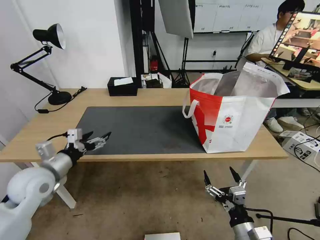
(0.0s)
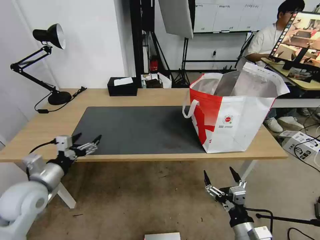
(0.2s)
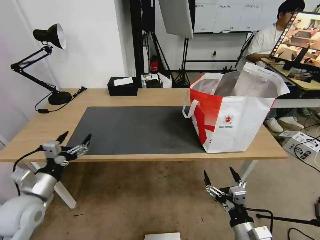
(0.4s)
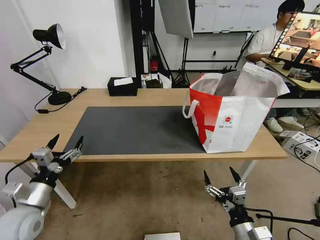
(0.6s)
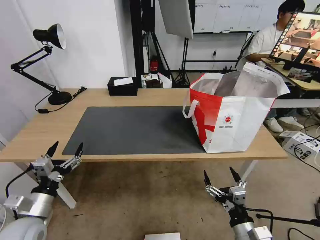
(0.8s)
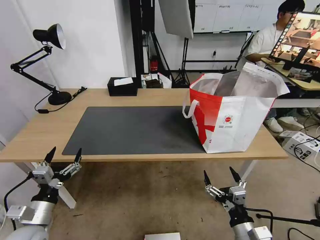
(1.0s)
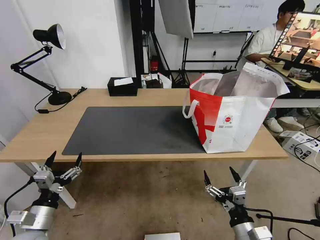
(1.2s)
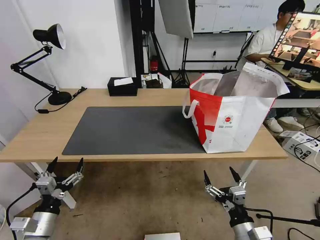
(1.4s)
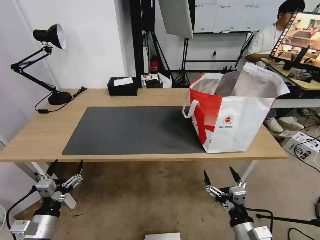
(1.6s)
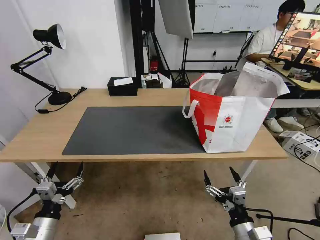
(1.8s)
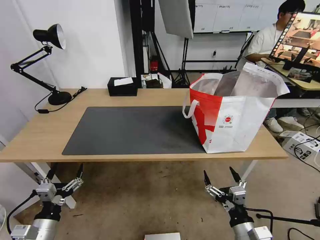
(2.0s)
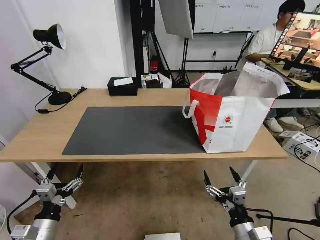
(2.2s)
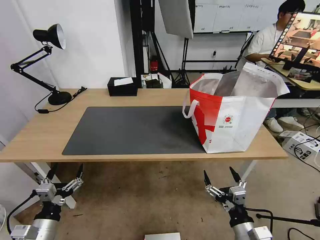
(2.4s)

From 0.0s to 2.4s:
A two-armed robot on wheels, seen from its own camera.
Task of the whole recording: Pick up the trash from the table and place it into the takeout bag.
From 0.0s to 1.2s: The left gripper is displaced backward and downward by roughly 15 cm.
From 1.2s to 2.4s: The grippers move only a little.

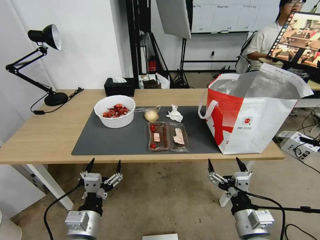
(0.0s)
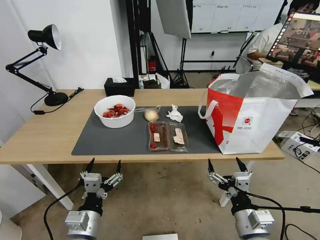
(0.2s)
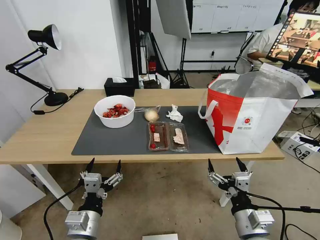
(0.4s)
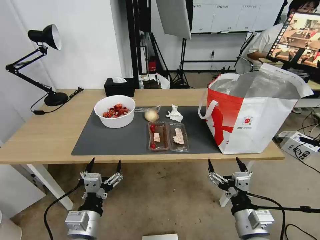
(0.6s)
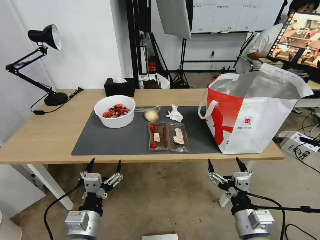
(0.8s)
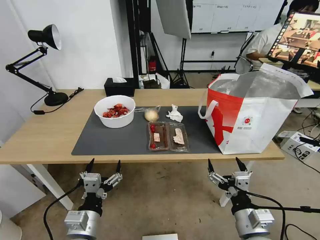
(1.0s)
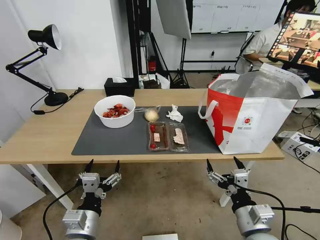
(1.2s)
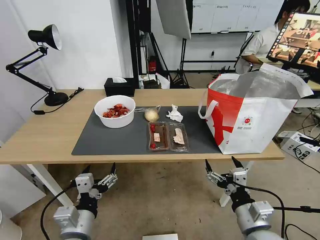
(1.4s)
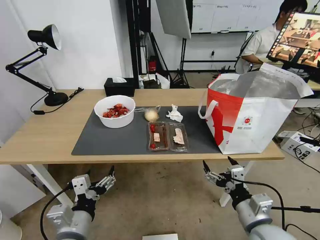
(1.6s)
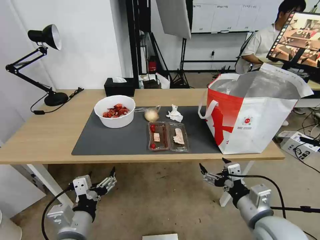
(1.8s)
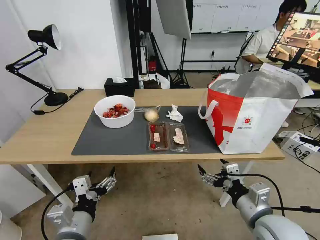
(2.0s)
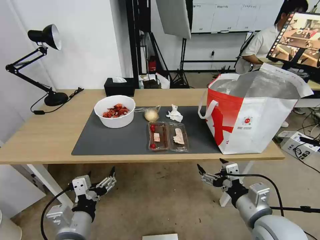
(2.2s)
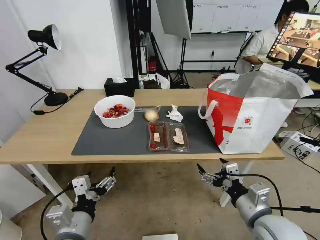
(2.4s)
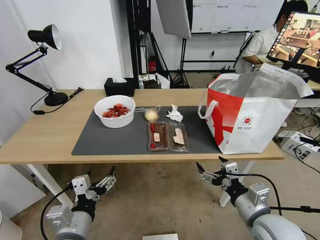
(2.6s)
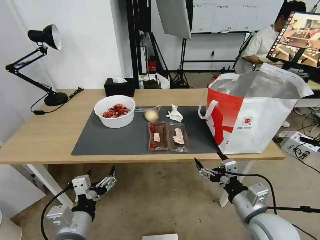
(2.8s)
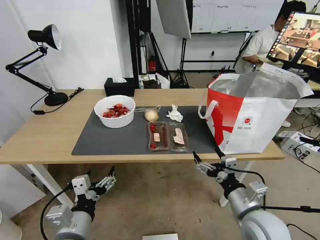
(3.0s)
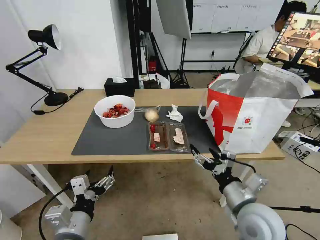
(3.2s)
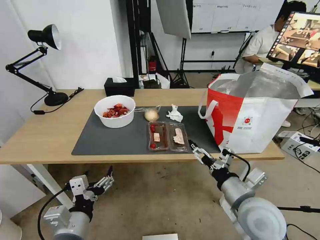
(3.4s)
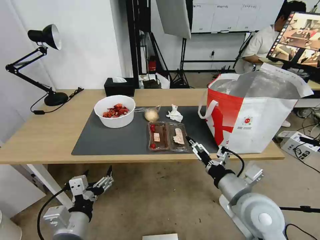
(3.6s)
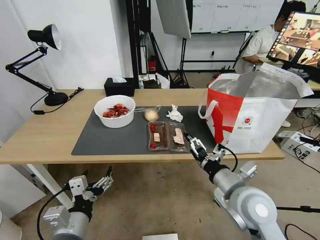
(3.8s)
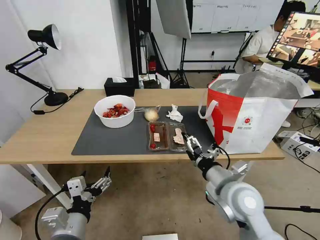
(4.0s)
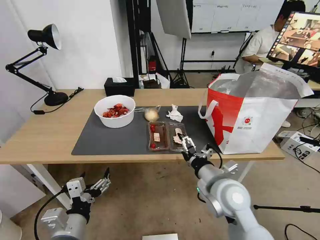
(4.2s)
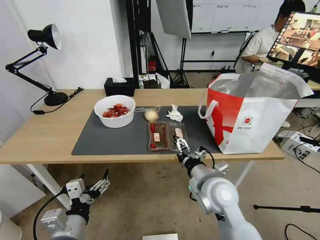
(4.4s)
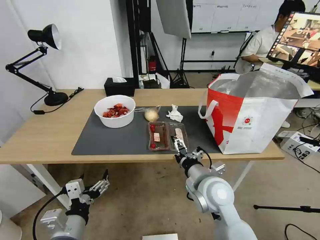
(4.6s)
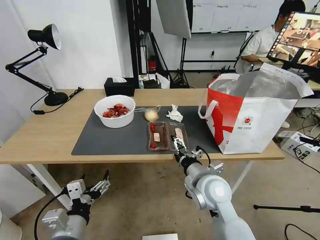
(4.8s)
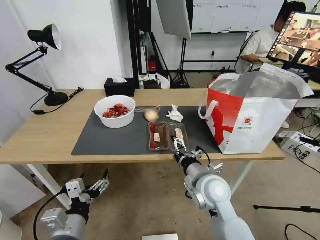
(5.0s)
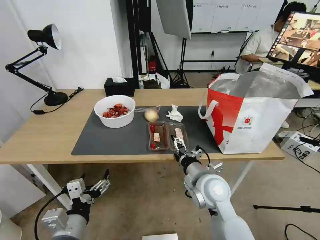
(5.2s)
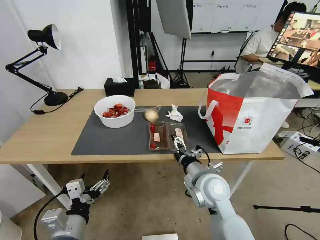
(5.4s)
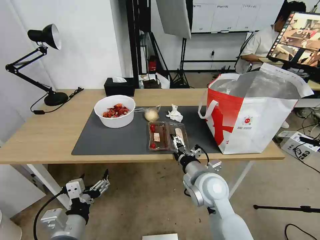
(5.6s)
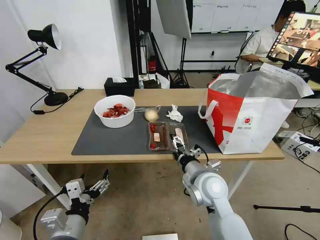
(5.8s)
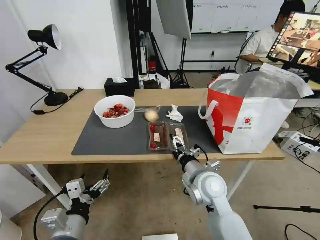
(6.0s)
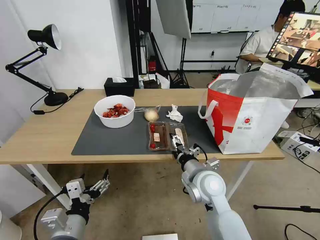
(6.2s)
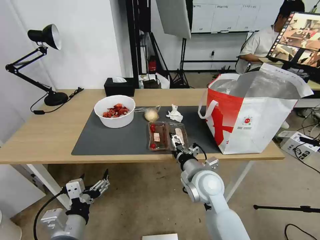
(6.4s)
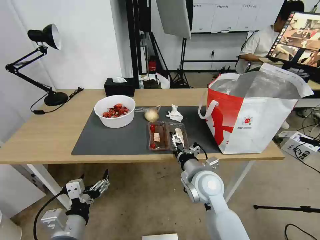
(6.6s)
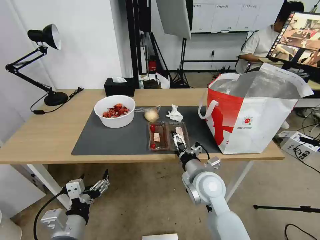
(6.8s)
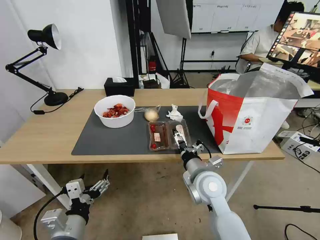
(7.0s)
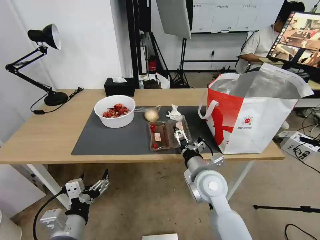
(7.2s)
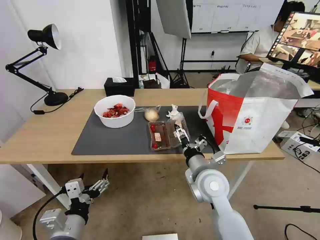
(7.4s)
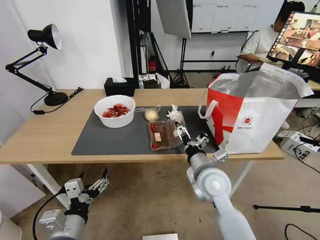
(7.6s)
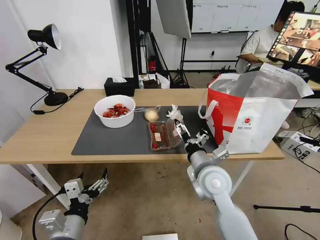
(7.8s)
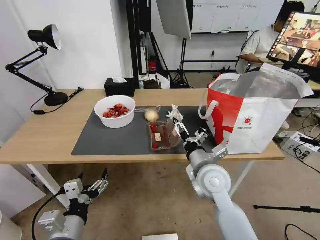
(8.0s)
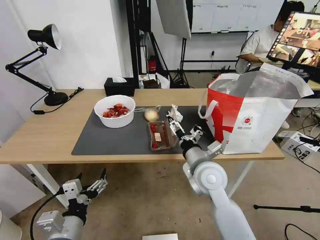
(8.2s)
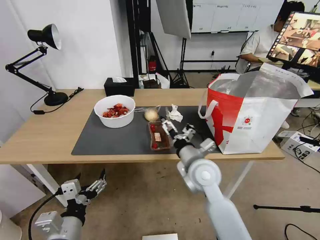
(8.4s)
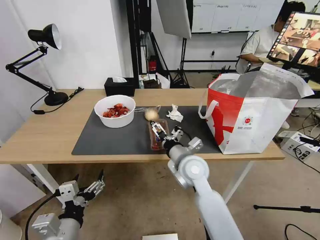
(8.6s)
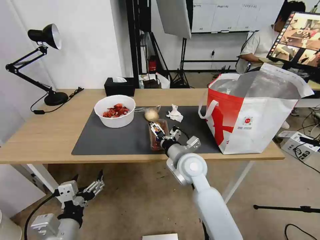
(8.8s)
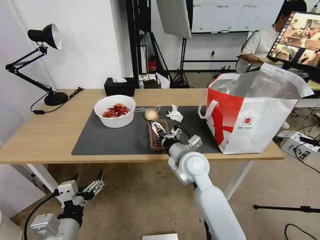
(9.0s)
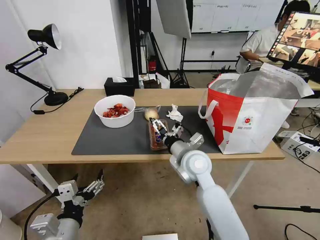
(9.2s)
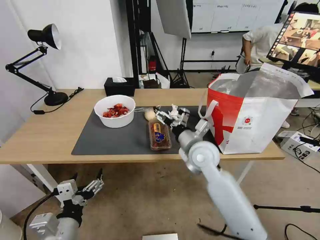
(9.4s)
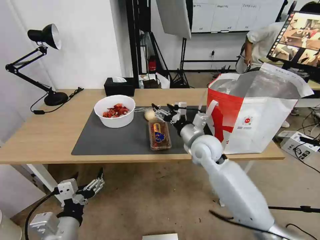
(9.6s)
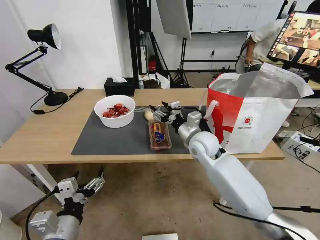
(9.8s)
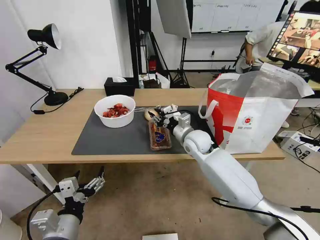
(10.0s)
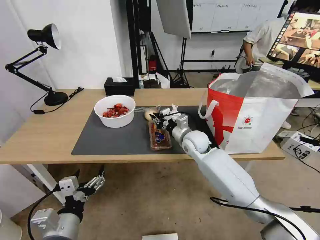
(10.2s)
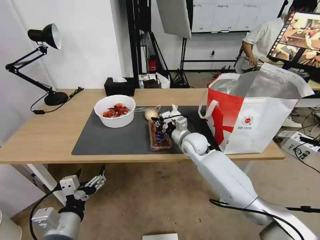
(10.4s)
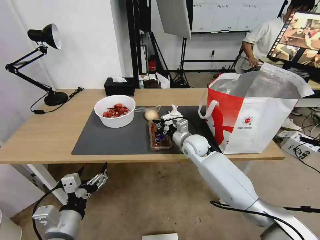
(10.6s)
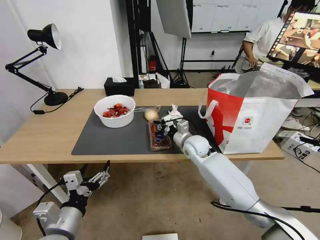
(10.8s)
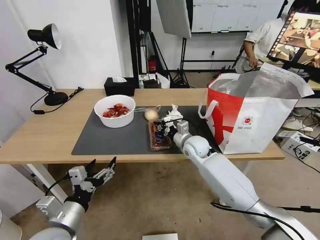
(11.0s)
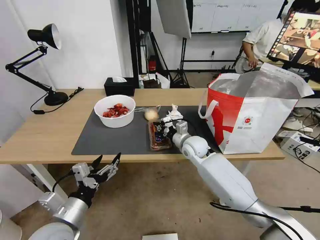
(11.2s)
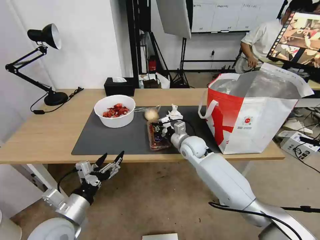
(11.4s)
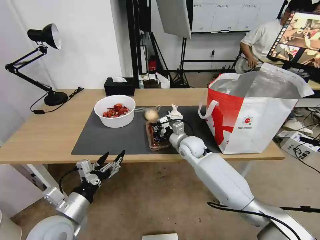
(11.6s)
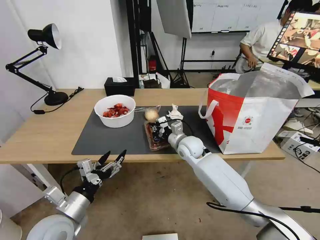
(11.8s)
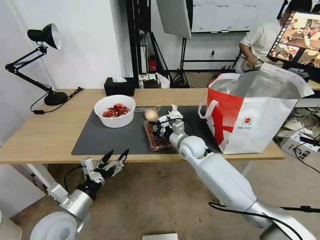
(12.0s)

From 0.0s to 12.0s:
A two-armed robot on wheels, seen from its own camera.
Task of the whole recording: Pick up the trash from the table and place it into the takeout bag.
From 1.6s to 3.0s: The grippers stay close to where they were, moving slightly.
From 3.0s to 4.4s: The right gripper goes about 10 cm to the left and forward.
From 4.4s to 7.6s: The grippers move only a little.
From 7.6s to 9.0s: The right gripper travels forward by about 5 cm.
From 9.0s to 10.4s: The right gripper moves forward, about 10 cm, and closes.
From 10.4s to 12.0s: The left gripper shifts some 5 cm forward.

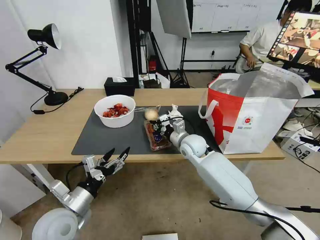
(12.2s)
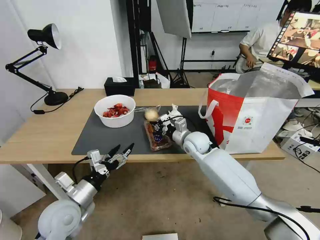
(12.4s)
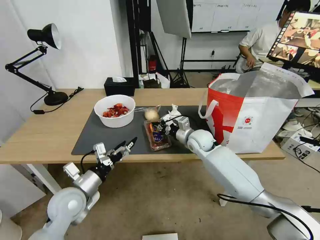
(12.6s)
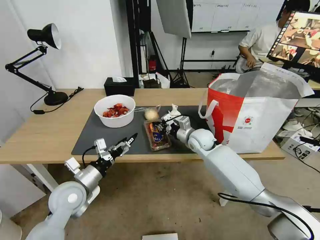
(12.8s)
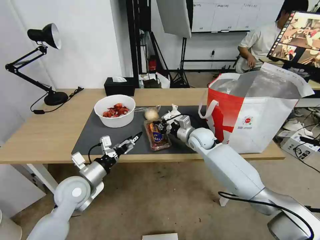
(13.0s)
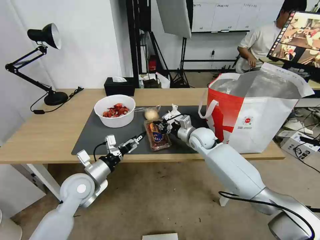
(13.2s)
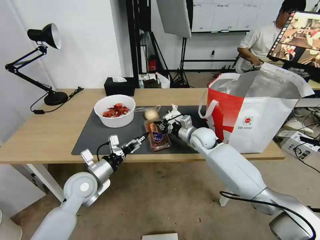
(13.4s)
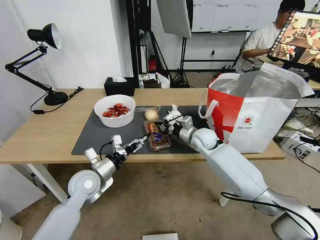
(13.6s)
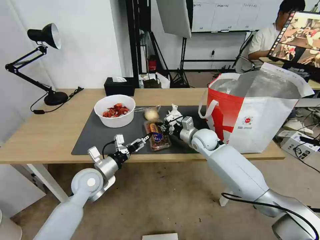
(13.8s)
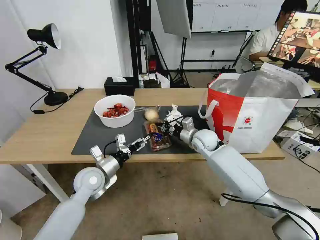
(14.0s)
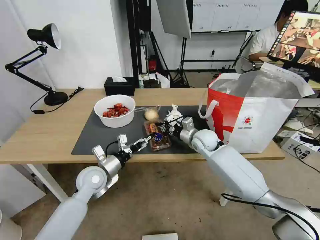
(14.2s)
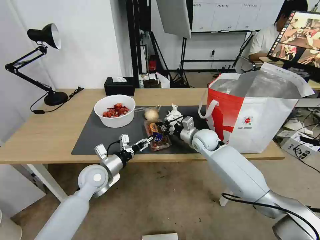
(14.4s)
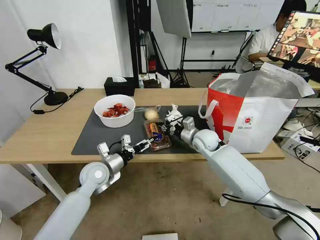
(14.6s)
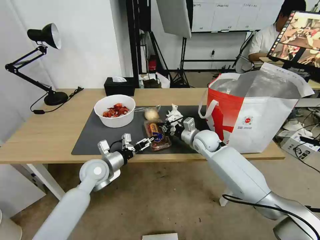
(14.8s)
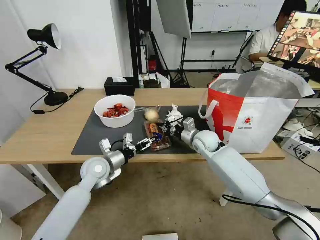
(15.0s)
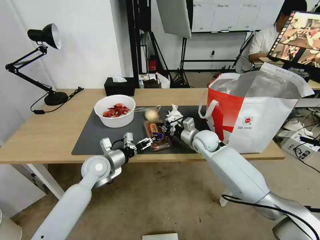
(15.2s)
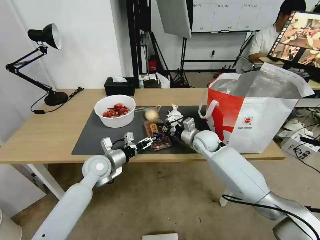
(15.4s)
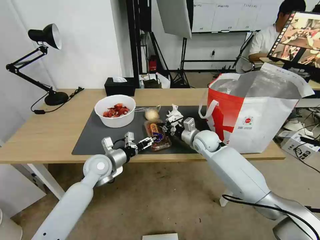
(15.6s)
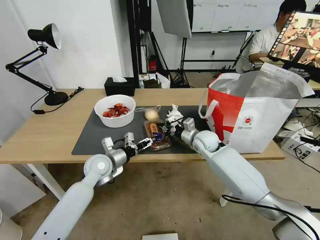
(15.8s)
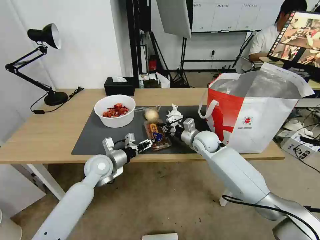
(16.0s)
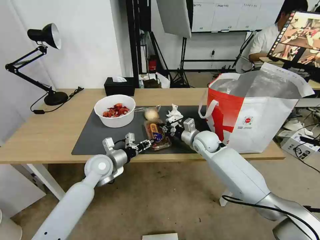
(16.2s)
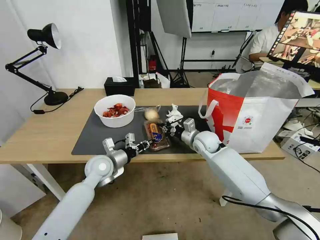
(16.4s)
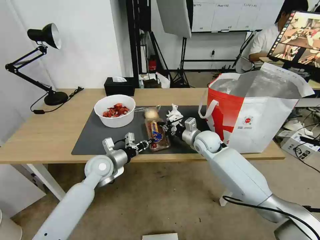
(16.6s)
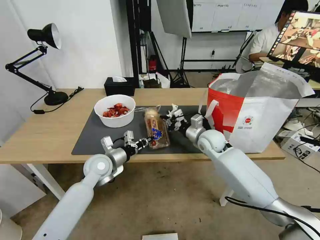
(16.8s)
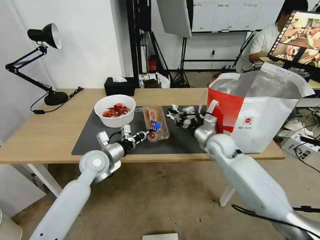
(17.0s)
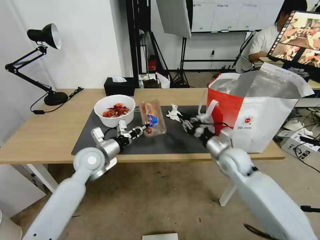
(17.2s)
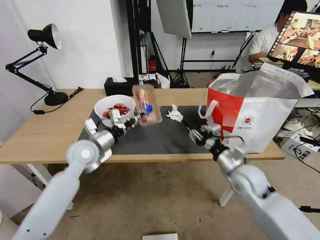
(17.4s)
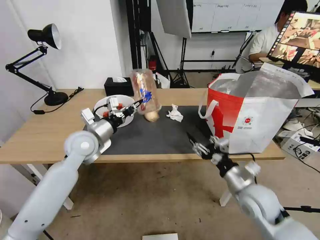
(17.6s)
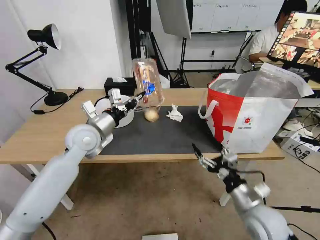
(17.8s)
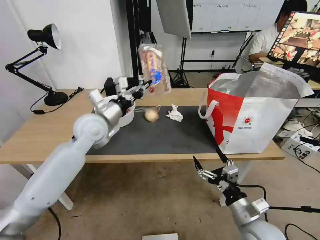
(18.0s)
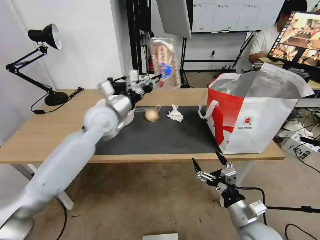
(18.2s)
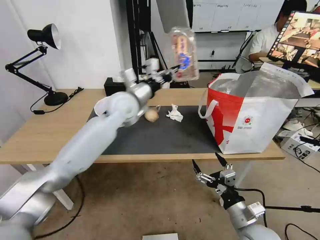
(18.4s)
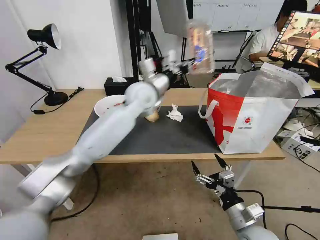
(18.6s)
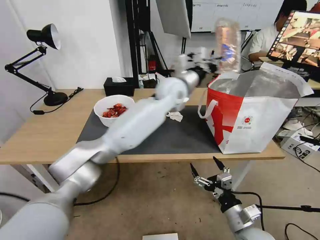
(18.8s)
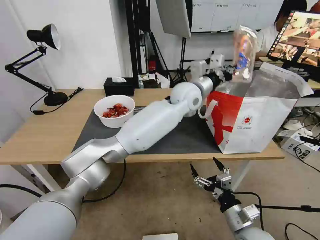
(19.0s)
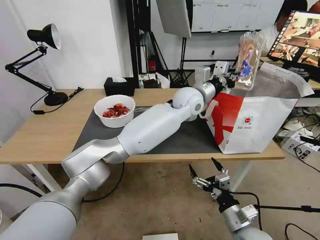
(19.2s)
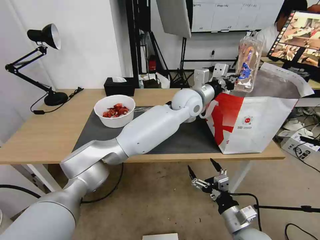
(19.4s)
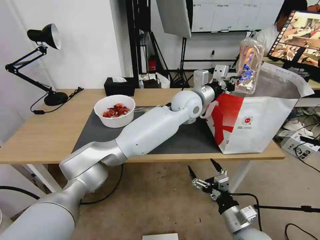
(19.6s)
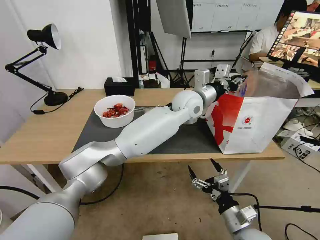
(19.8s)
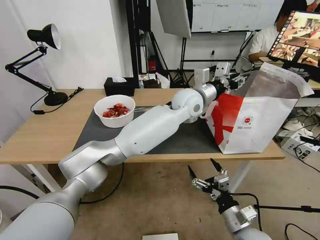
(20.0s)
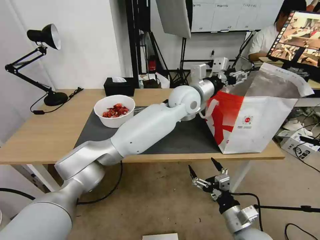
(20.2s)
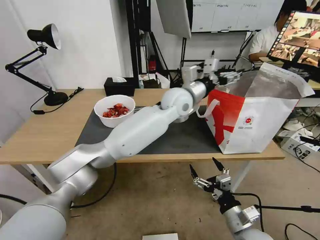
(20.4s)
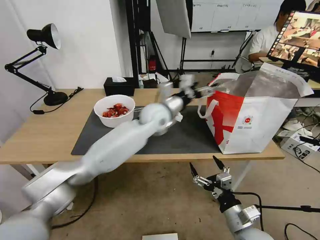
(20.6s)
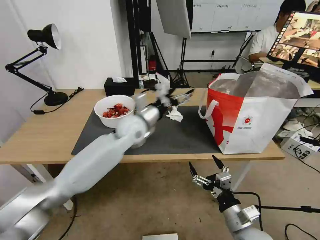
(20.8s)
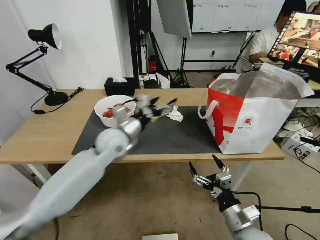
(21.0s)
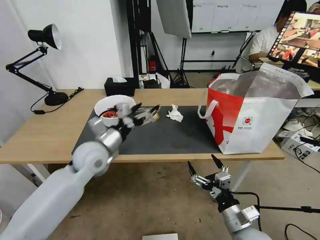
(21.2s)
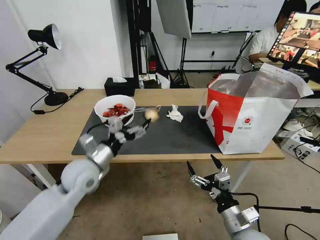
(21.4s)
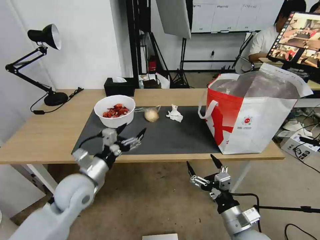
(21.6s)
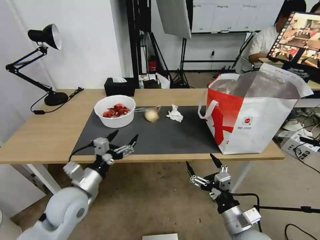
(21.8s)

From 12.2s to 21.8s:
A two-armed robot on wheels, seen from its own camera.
Task of the whole recording: Pick up the trash from the table and place it into the takeout bag.
From 12.2s to 13.8s: The left gripper moves forward, some 10 cm. Meanwhile the right gripper heads to the right, covering approximately 5 cm.
From 13.8s to 15.4s: The left gripper moves forward, about 5 cm.
From 15.4s to 17.0s: The right gripper moves roughly 5 cm. The left gripper closes.
From 17.0s to 18.6s: The right gripper travels backward by about 30 cm, and opens; the left gripper moves upward, to the right and forward, some 30 cm.
From 18.6s to 20.2s: The left gripper shifts about 15 cm to the right, and opens.
From 20.2s to 21.8s: The left gripper moves to the left, backward and downward, some 40 cm.
